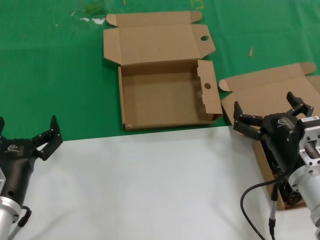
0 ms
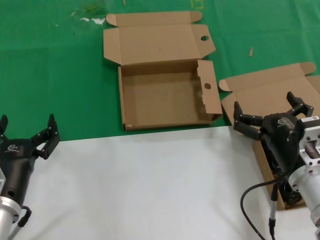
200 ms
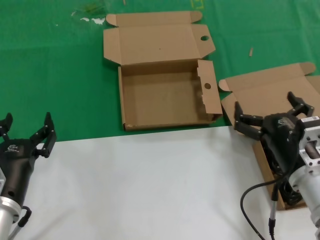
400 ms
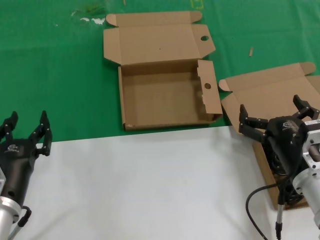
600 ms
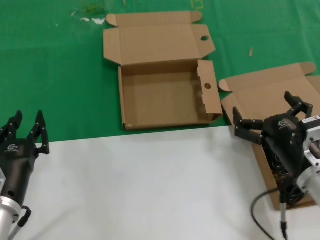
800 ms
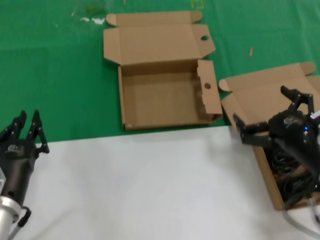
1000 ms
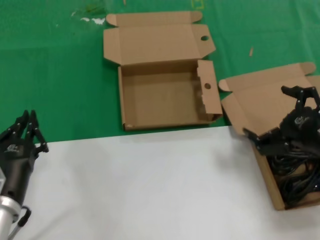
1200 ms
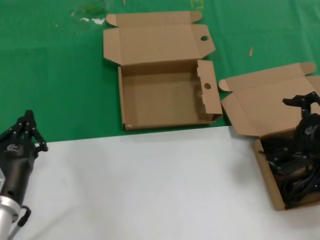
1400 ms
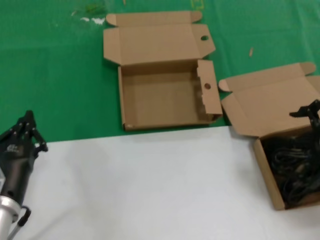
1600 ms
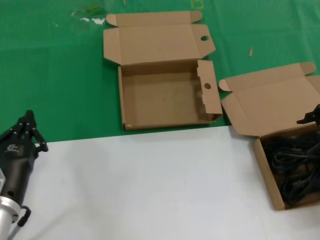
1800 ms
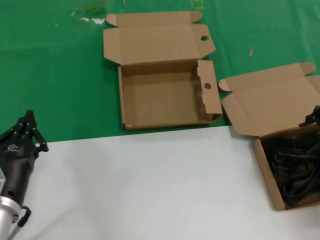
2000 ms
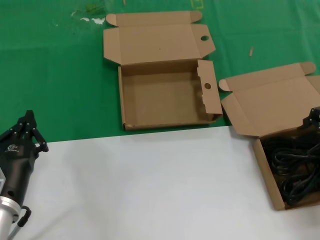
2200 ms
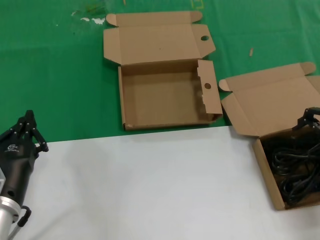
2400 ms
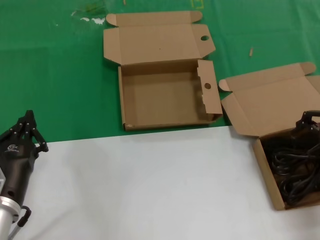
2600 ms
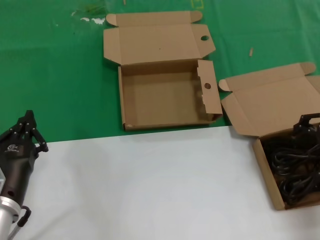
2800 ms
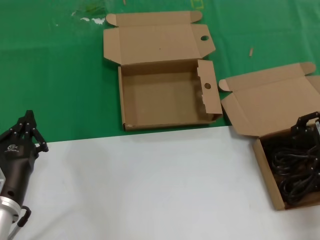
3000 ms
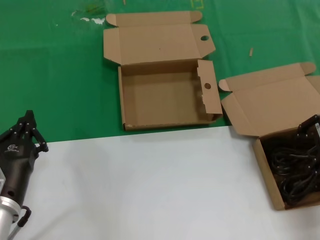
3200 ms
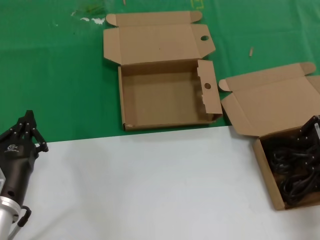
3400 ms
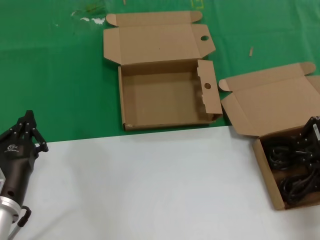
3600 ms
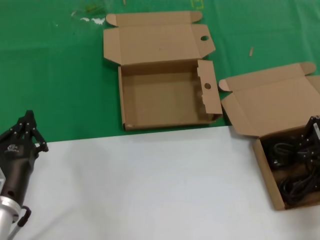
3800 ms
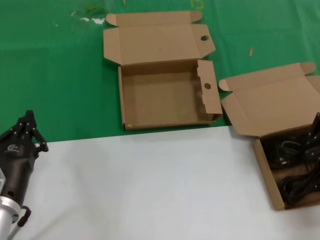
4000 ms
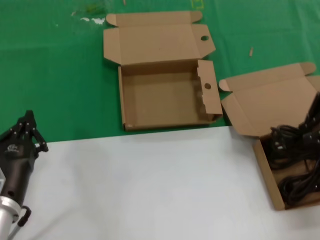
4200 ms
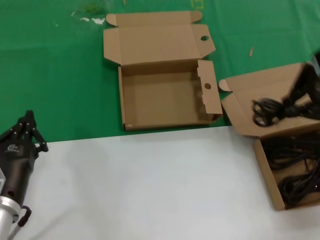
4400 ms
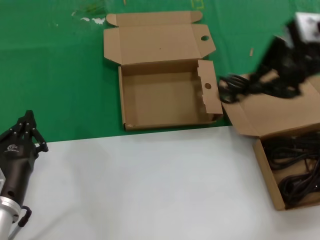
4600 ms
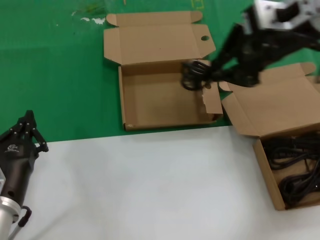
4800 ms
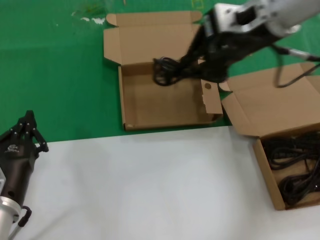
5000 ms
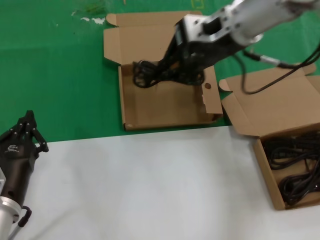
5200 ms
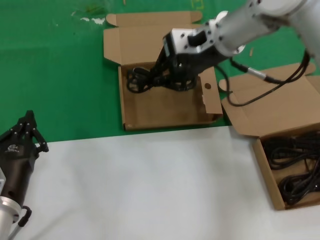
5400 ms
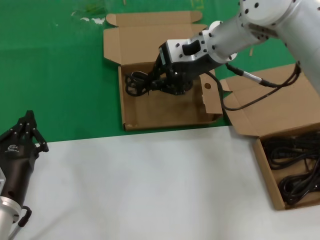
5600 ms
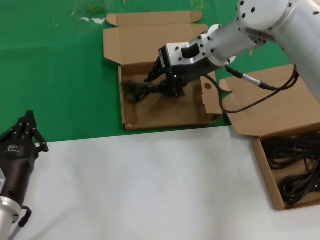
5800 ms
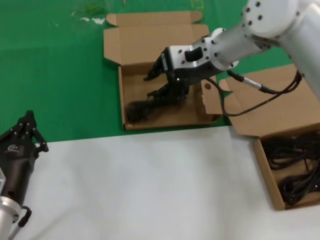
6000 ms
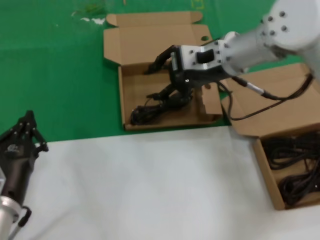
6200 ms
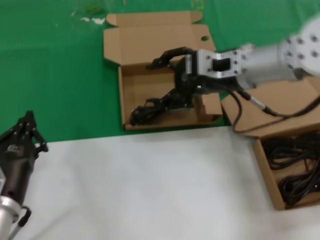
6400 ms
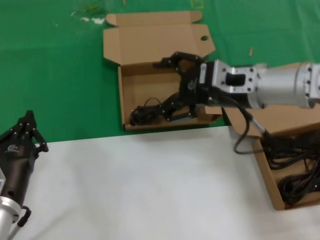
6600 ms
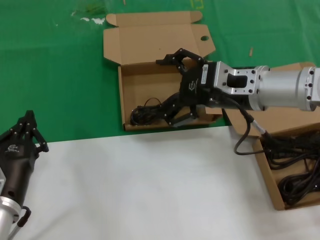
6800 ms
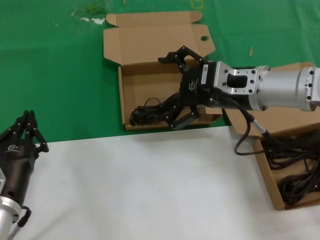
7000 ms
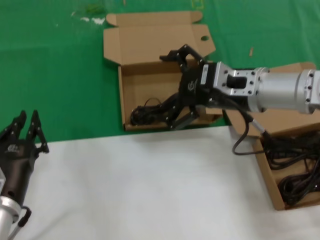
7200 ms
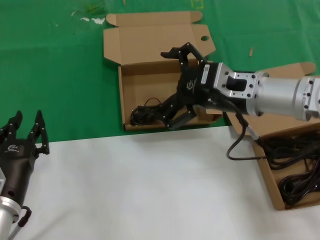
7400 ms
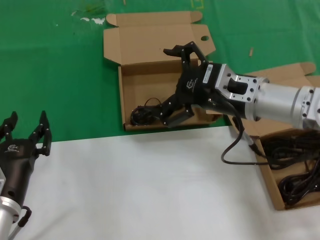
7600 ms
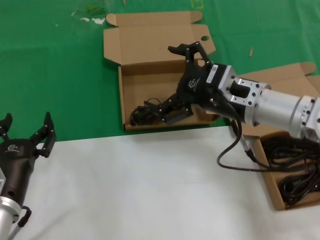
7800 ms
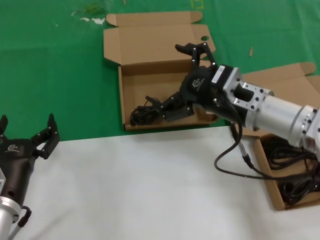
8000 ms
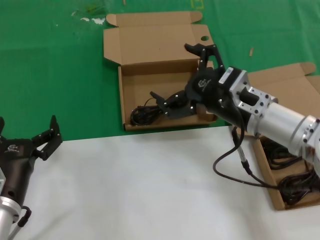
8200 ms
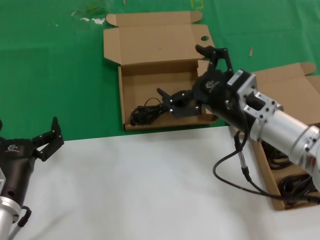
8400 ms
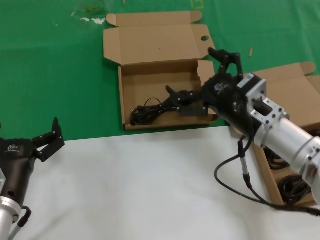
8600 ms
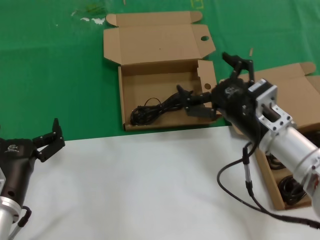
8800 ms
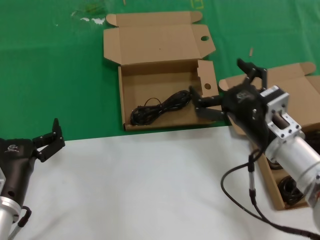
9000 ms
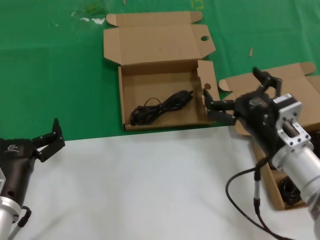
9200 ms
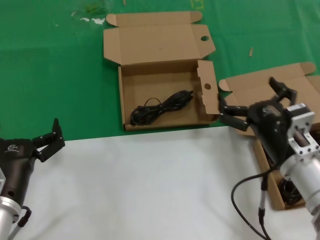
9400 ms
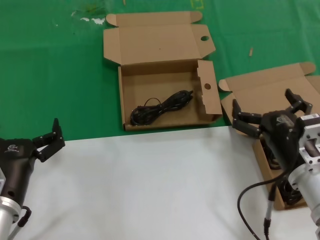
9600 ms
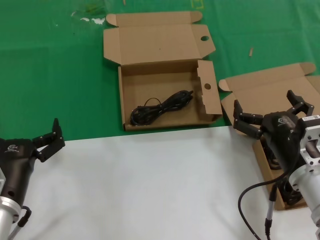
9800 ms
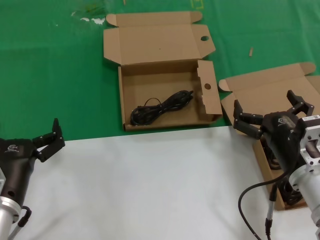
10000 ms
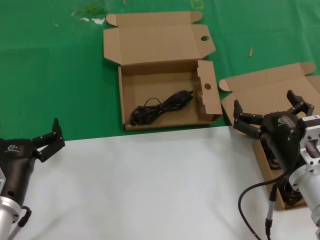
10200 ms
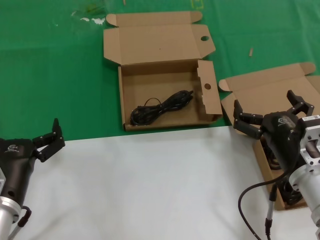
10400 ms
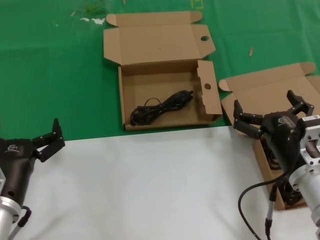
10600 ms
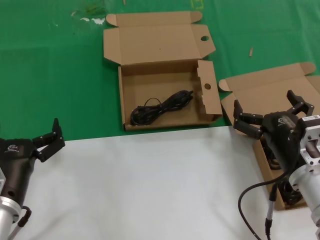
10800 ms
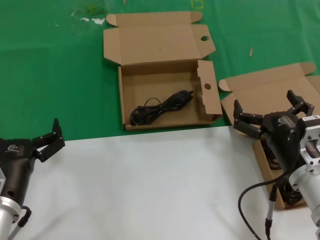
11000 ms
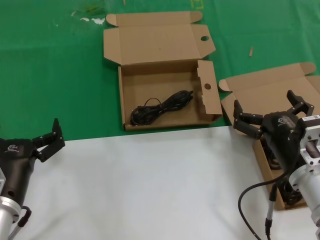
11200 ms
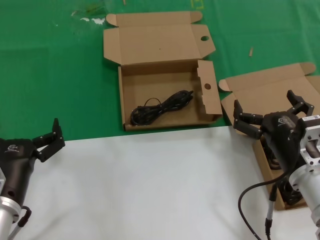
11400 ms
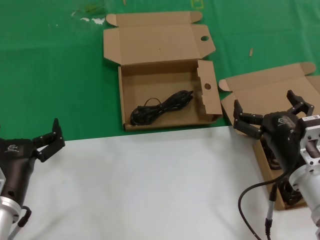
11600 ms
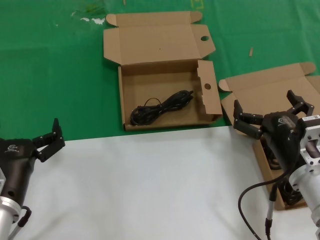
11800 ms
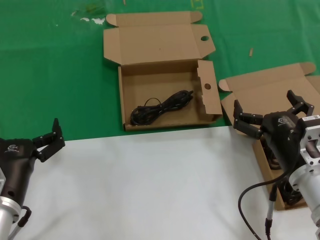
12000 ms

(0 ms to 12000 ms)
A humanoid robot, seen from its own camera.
Task of the whole recording: take the parts from the box containing them and put them into an empty box.
Step, 0 ms - 3600 ms: Grasp the data cable.
Step, 4000 ms - 6400 ms: Place the data cable in the another box.
0 ms - 1600 ms: The right hand moves upward and to the right, approximately 20 cm.
1600 ms - 3000 ms: The right hand travels forward by some 10 cm.
3000 ms - 4400 ms: The right hand shifts roughly 15 cm upward and to the left.
4400 ms - 6000 ms: The right hand travels to the left, forward and downward by roughly 25 cm.
6000 ms - 7600 ms: The right hand heads backward, downward and to the right, covering approximately 15 cm.
7600 ms - 9000 ms: The right hand goes some 10 cm downward and backward.
9000 ms - 10400 ms: The right hand changes place by approximately 5 cm.
10400 ms - 12000 ms: Both hands stay put.

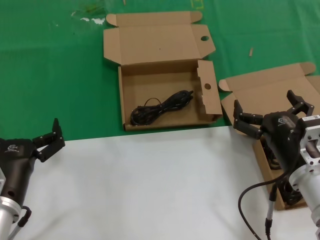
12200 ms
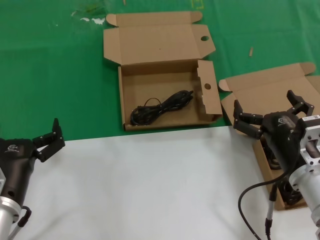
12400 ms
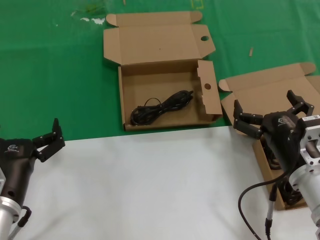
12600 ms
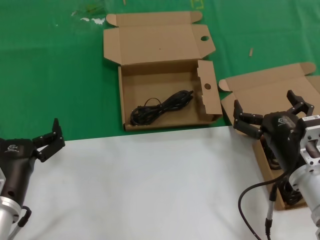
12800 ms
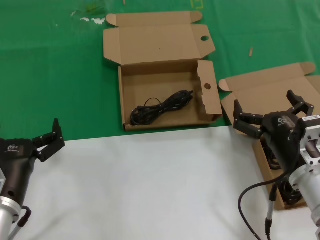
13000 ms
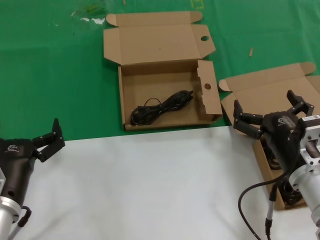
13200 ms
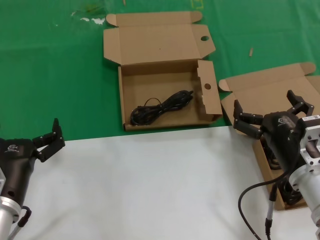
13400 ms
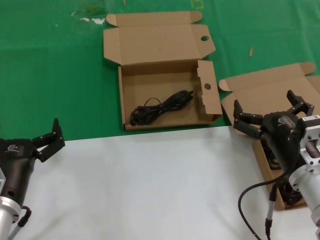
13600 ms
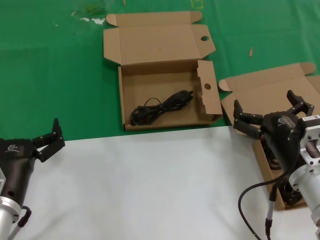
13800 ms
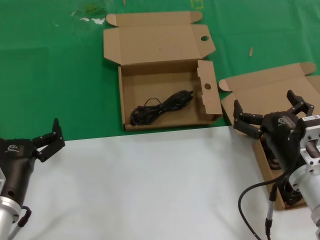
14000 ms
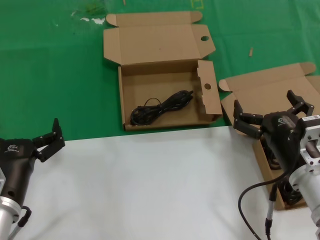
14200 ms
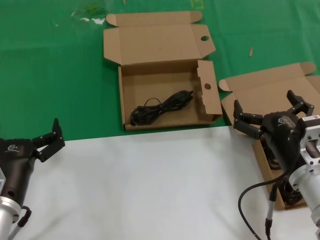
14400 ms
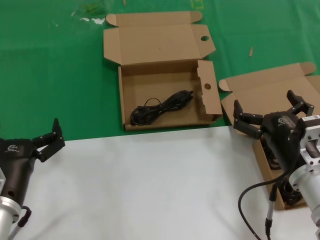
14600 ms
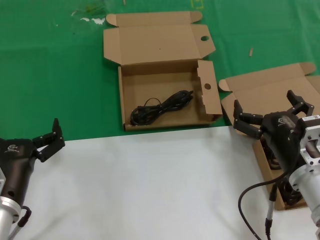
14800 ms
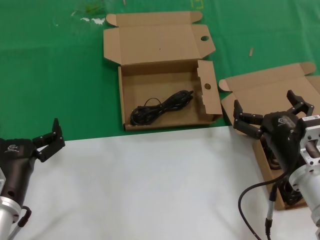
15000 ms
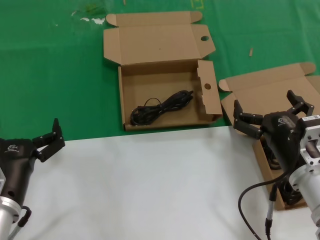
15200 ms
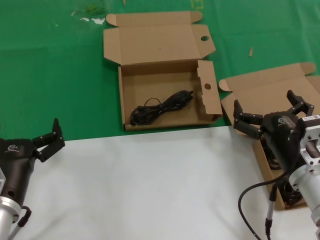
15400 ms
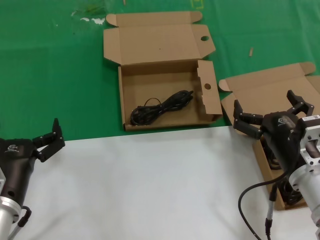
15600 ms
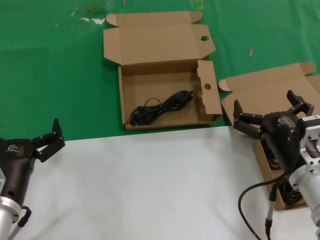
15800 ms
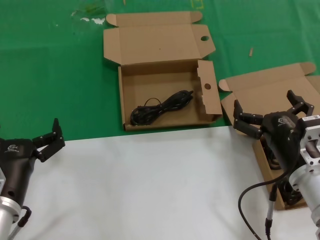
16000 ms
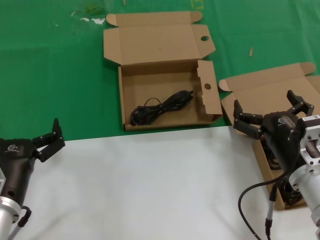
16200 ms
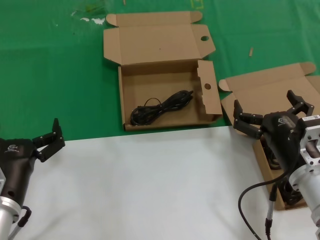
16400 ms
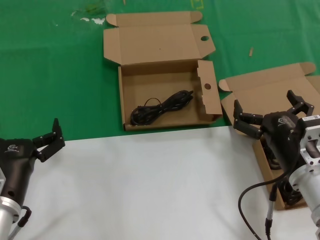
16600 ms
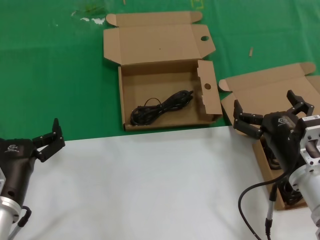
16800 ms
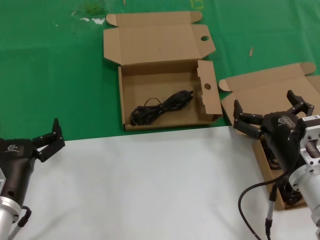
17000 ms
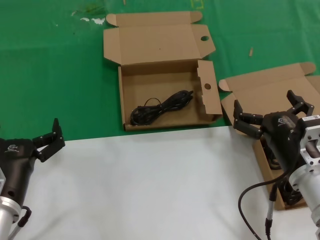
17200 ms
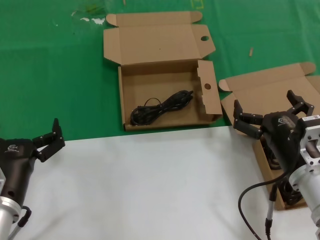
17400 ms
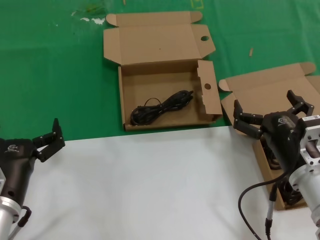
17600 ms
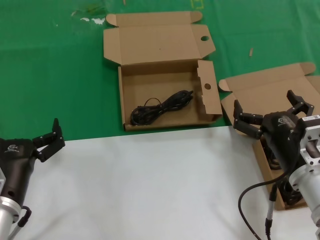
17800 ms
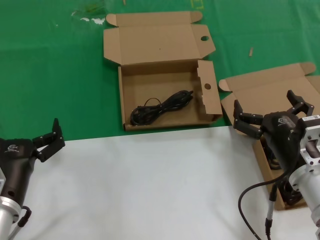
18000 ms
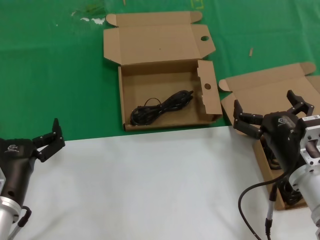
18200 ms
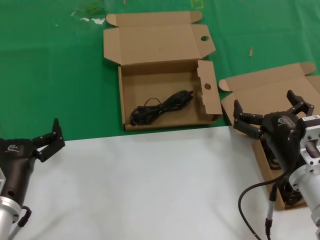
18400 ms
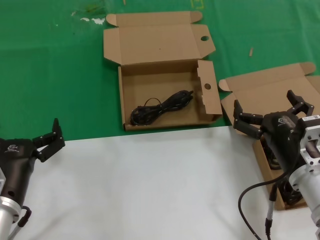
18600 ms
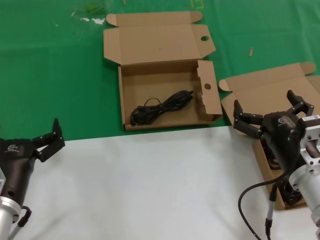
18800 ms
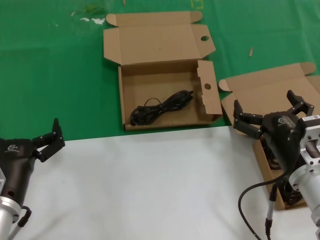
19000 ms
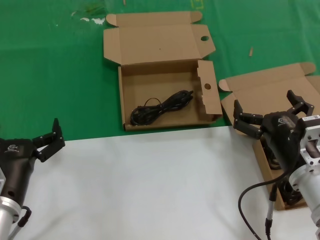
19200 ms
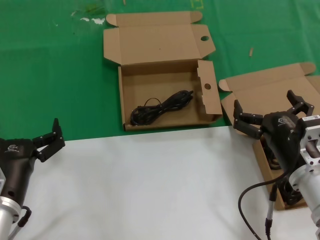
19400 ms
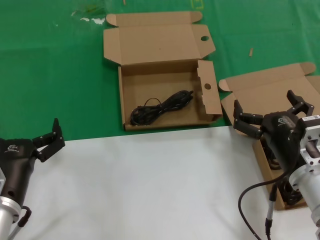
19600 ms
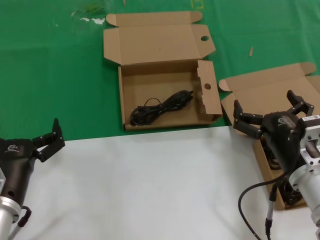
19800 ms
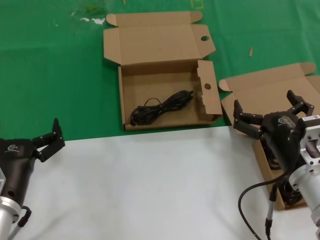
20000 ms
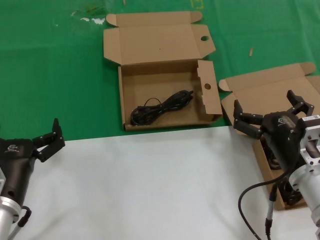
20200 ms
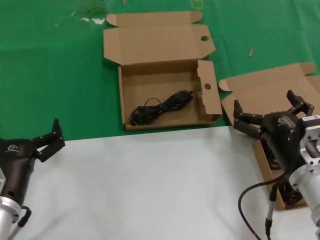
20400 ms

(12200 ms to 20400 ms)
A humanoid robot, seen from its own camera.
Task of the whole recording: take the parts from the box containing them and put them into an empty box.
12200 ms - 20400 ms: Both hands stay put.

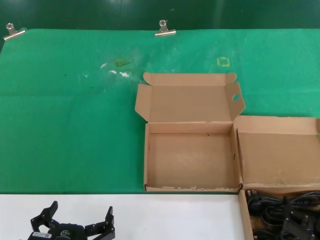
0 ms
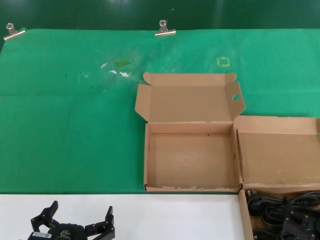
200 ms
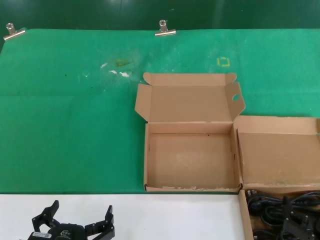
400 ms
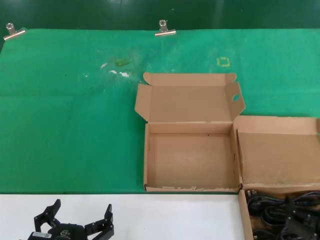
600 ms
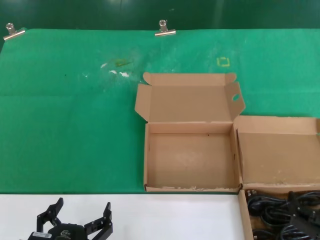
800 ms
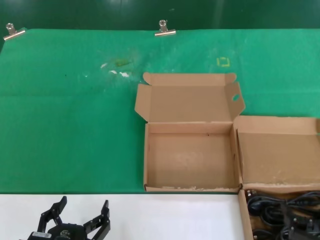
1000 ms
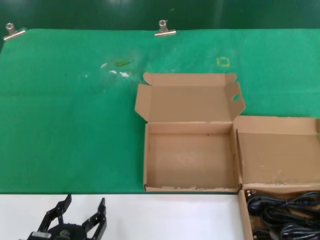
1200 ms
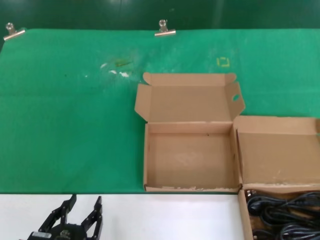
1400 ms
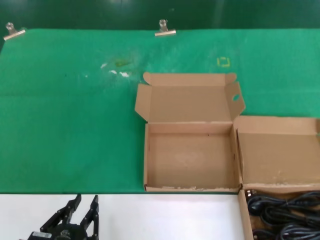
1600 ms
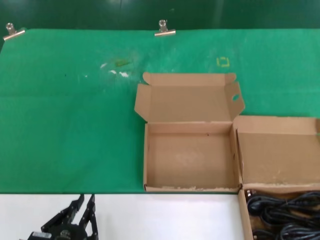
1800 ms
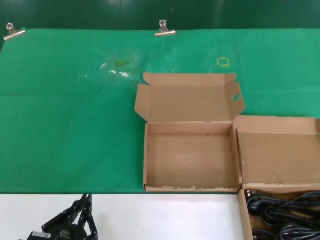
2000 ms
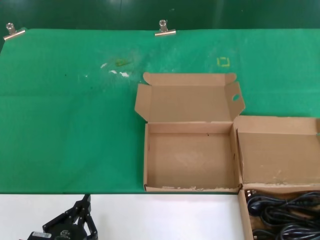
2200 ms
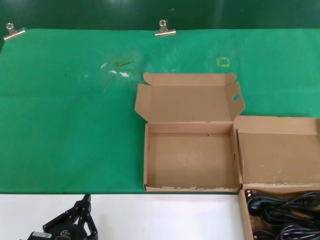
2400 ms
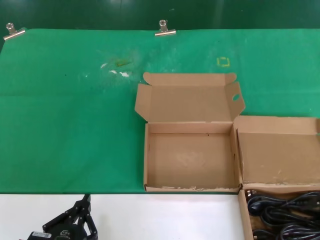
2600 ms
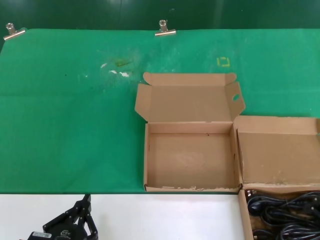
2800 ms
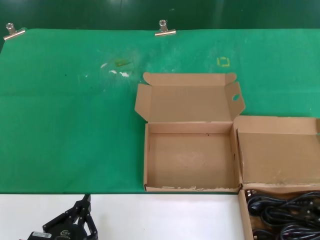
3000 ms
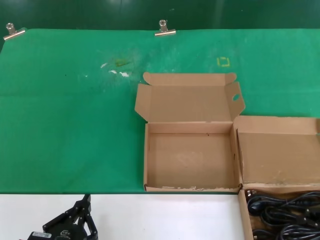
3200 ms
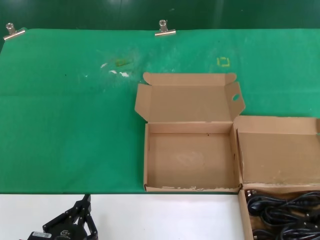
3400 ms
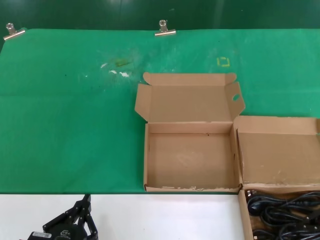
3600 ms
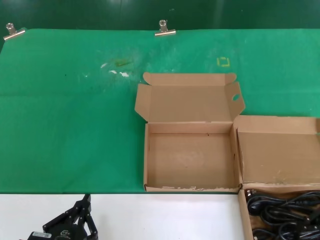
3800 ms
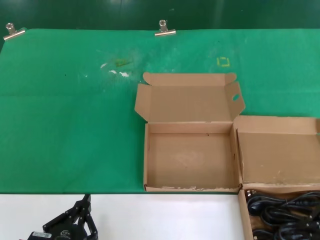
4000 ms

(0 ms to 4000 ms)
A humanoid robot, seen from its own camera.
Task of the whole recording: take the parts from the box containing them and put them into an empty box.
0 ms - 1400 ms: The right hand goes about 15 cm upward and to the right.
